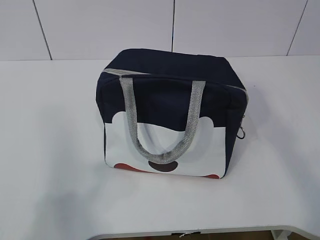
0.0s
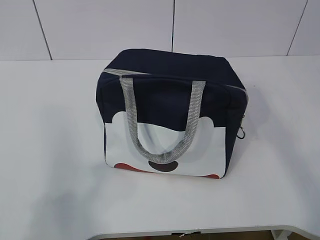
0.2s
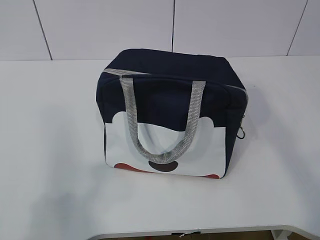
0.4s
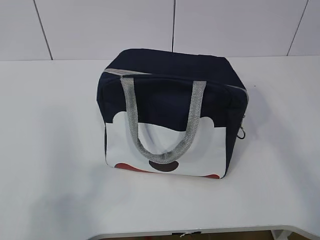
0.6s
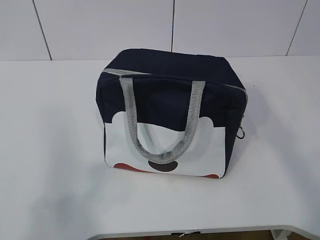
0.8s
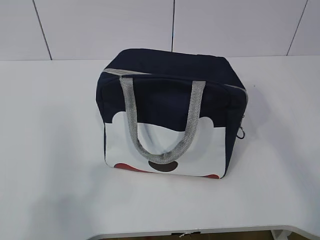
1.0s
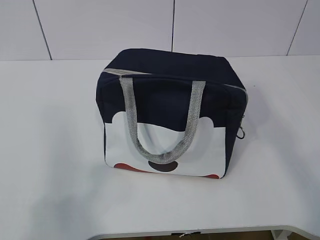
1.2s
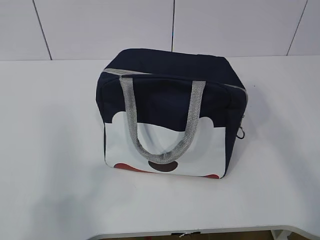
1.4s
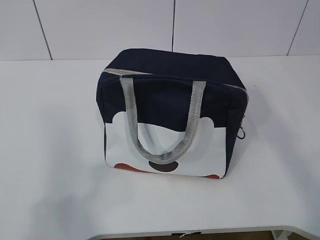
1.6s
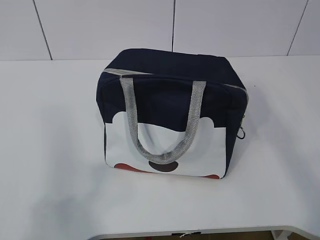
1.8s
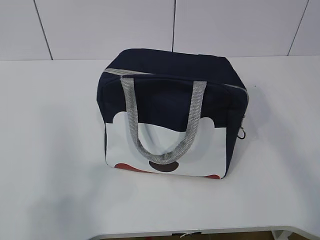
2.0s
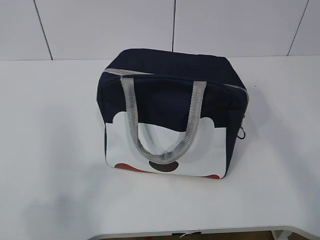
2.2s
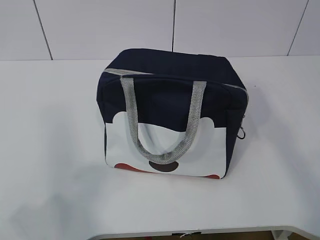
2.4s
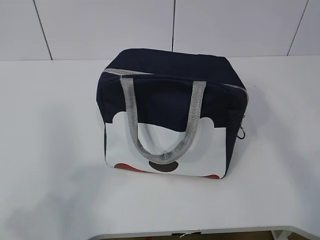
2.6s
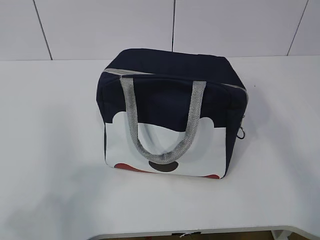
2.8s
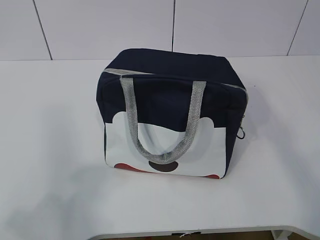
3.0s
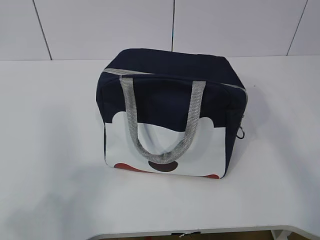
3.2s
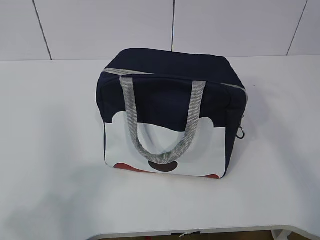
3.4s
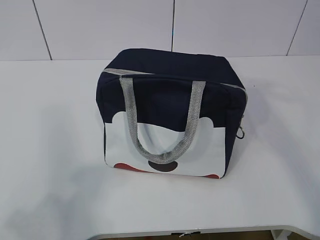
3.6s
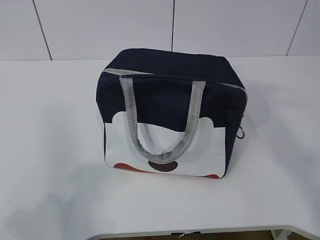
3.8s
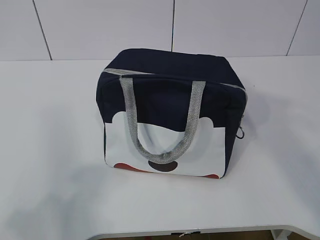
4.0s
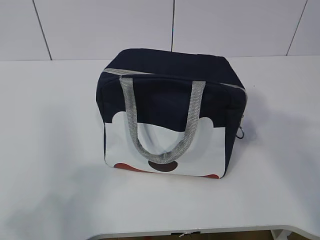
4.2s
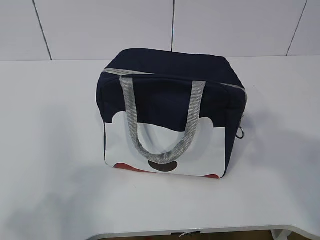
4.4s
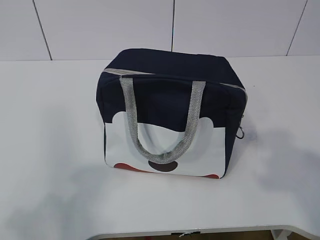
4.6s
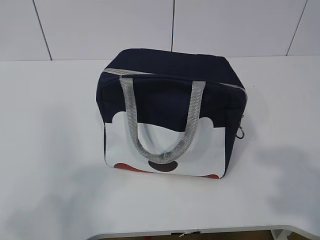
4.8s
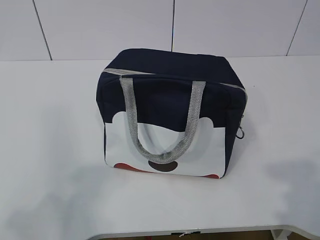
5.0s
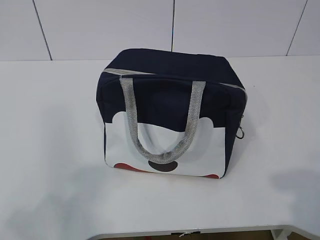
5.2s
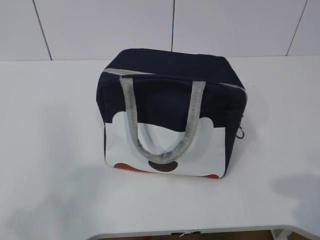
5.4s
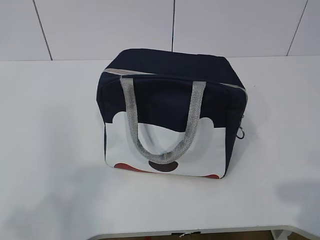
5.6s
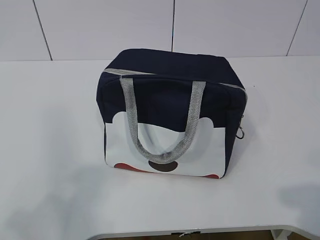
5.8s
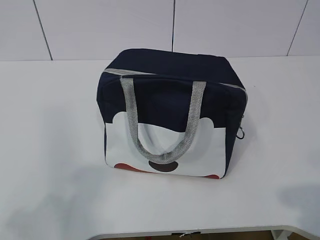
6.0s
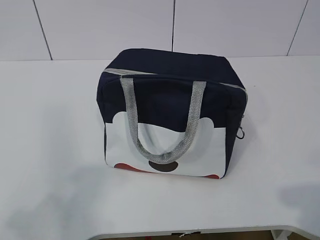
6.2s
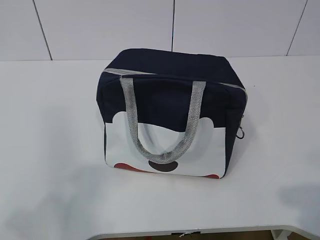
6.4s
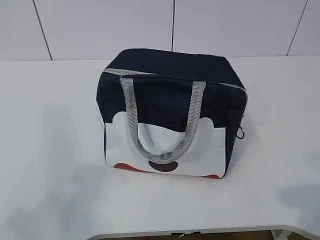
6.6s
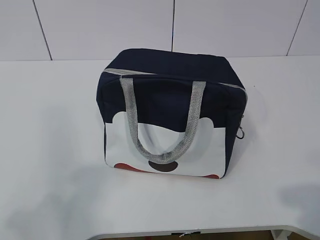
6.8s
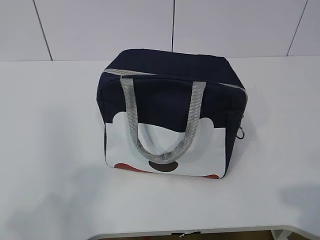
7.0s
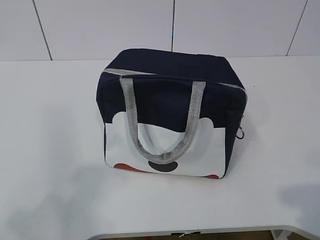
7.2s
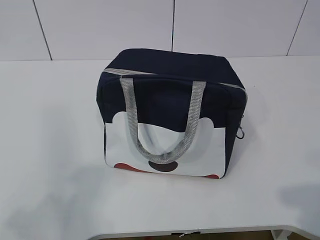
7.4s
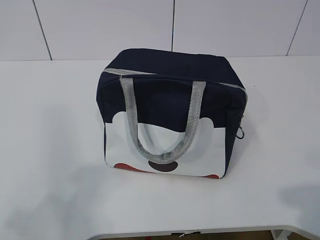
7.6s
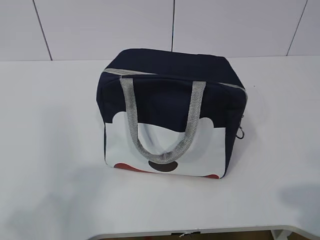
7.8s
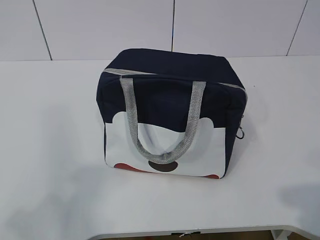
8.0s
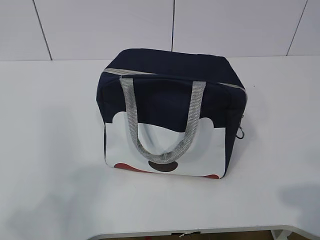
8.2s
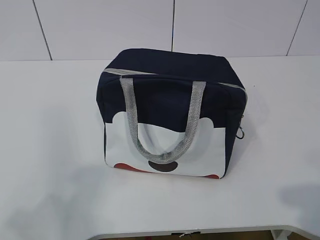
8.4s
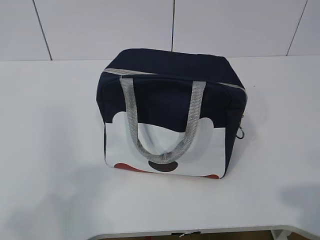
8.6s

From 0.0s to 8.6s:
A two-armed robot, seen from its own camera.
From 2.8s to 4.4s: The right gripper goes some 15 cm backward.
From 5.8s to 8.6s: The two grippers keep their place.

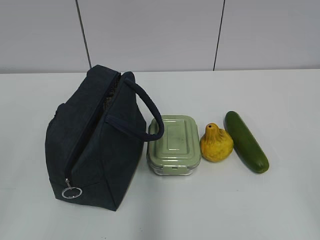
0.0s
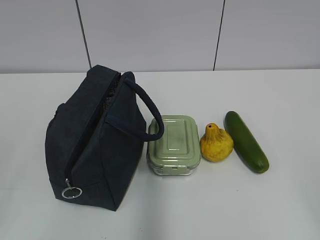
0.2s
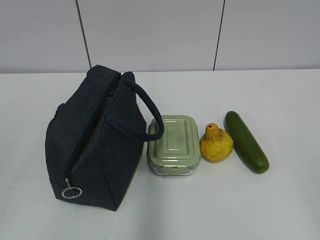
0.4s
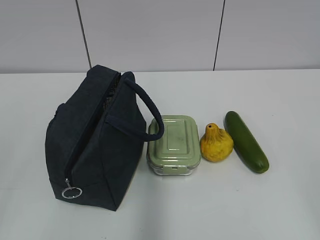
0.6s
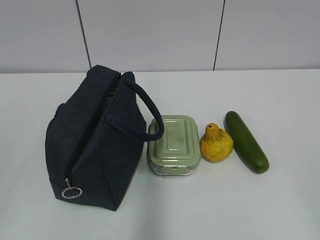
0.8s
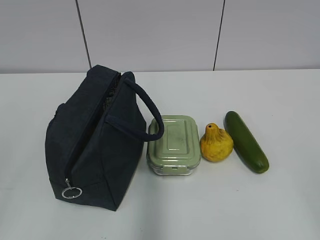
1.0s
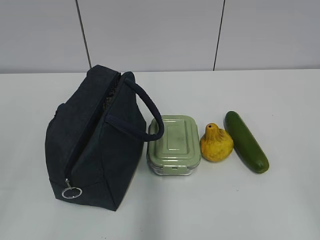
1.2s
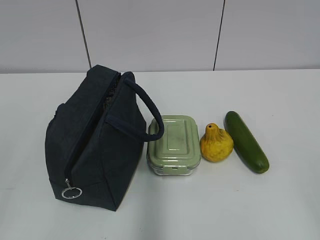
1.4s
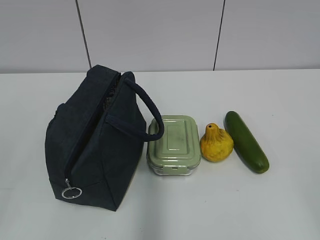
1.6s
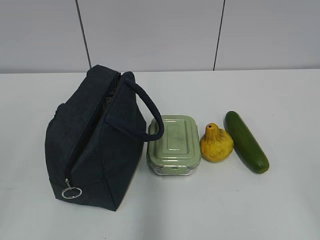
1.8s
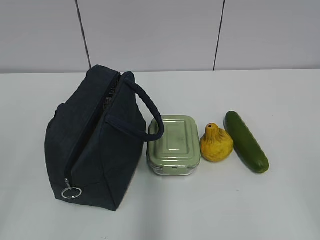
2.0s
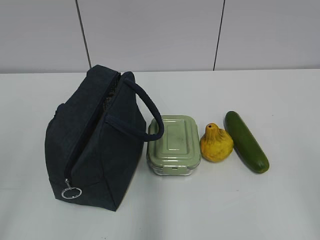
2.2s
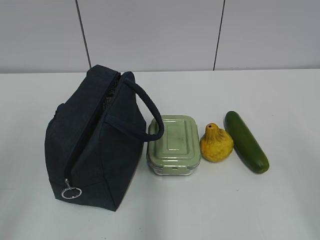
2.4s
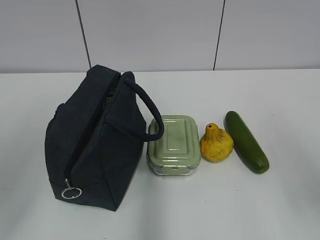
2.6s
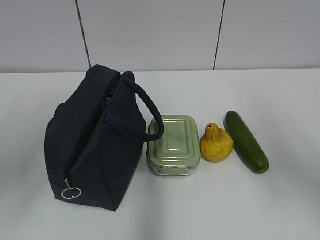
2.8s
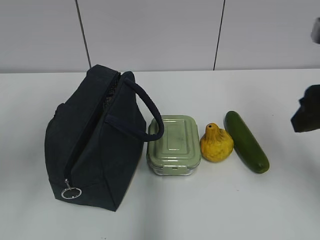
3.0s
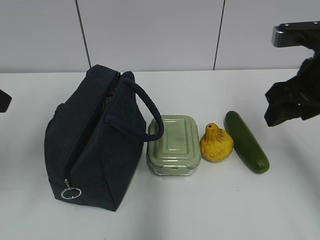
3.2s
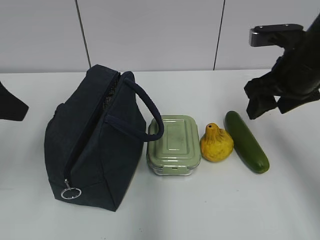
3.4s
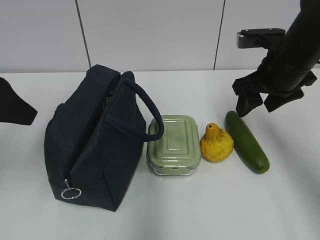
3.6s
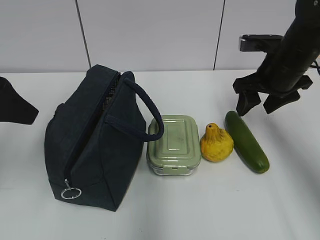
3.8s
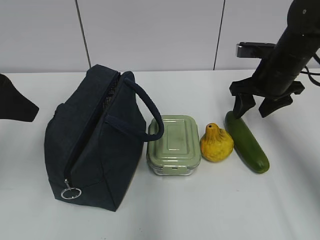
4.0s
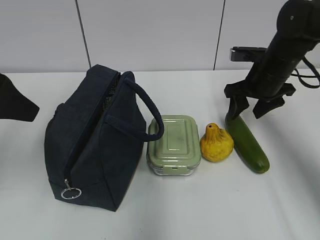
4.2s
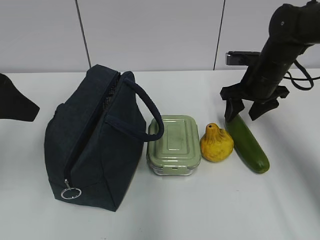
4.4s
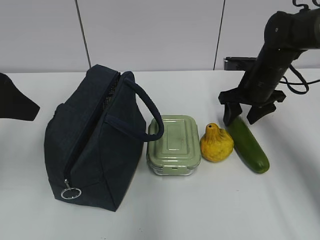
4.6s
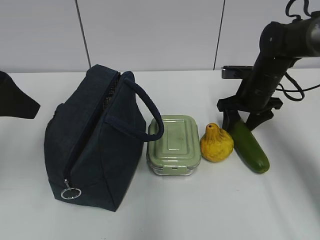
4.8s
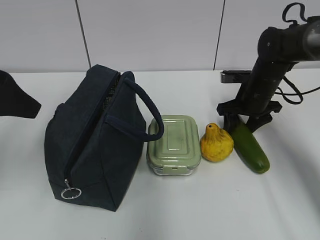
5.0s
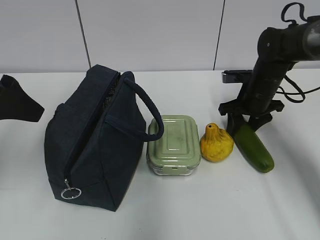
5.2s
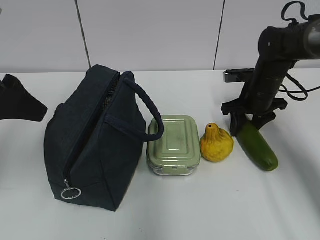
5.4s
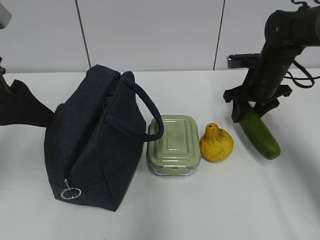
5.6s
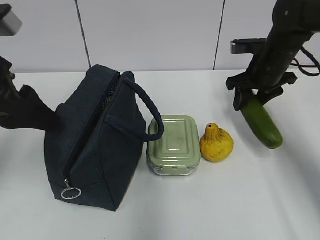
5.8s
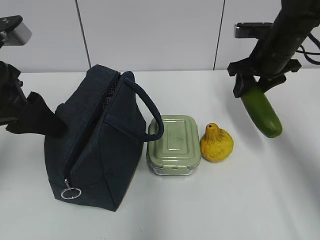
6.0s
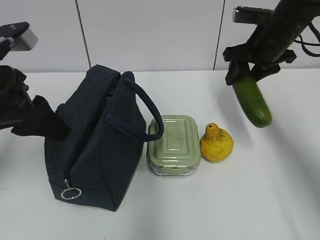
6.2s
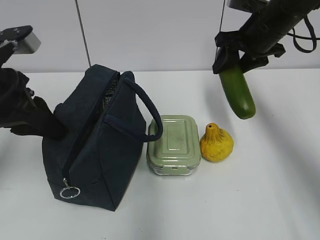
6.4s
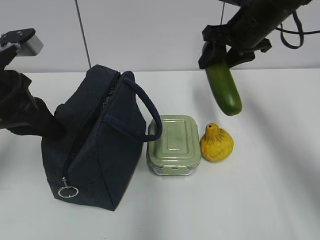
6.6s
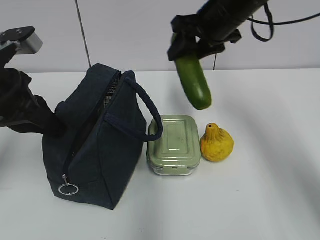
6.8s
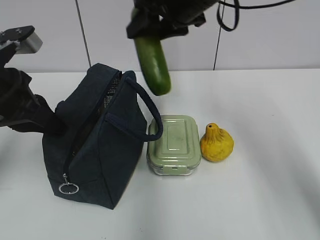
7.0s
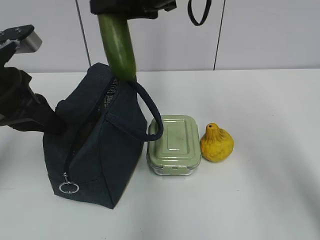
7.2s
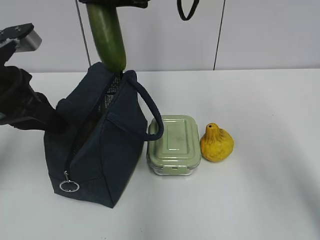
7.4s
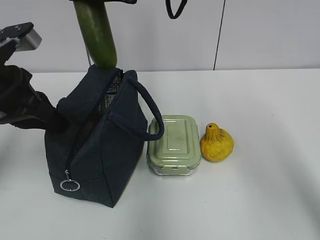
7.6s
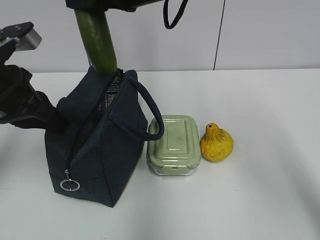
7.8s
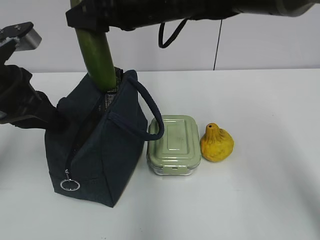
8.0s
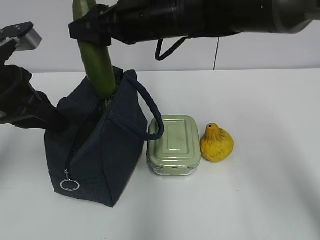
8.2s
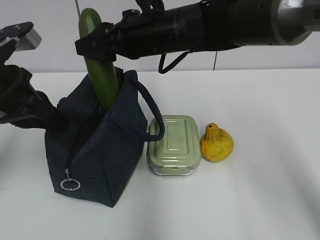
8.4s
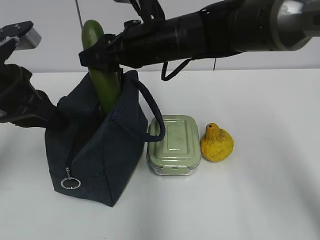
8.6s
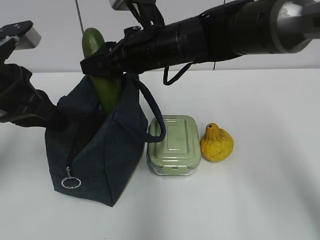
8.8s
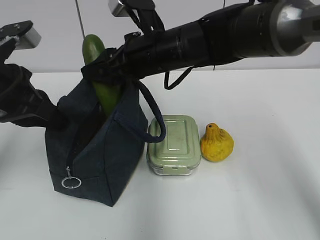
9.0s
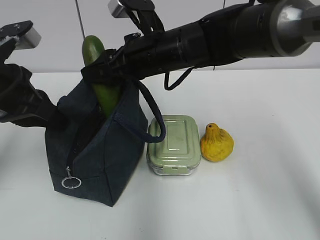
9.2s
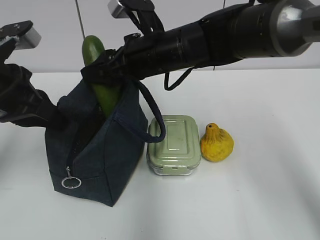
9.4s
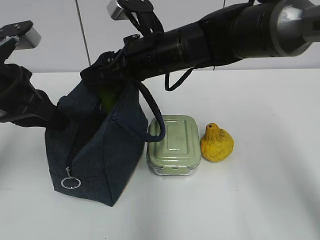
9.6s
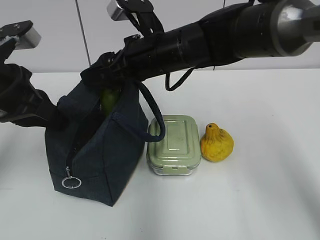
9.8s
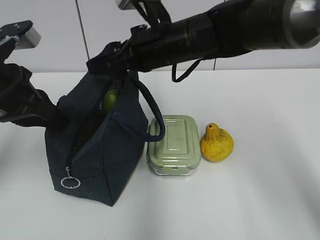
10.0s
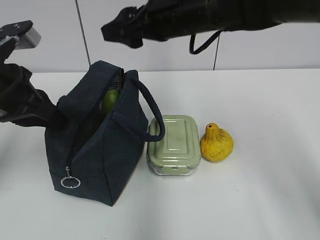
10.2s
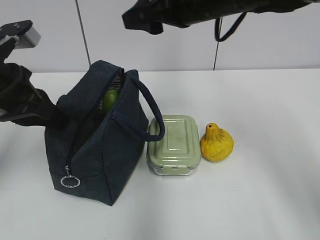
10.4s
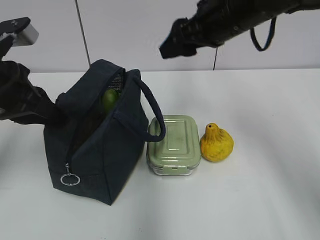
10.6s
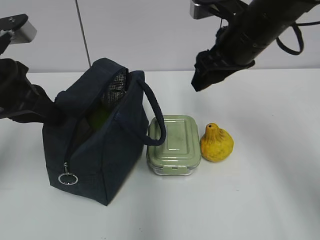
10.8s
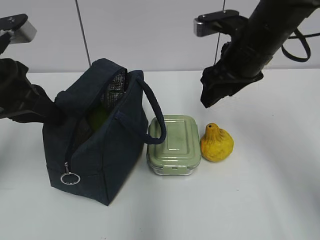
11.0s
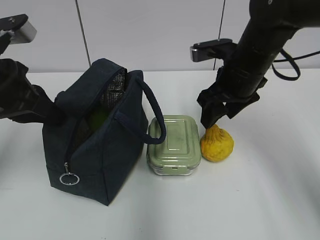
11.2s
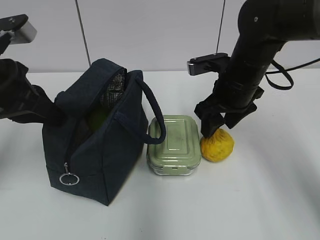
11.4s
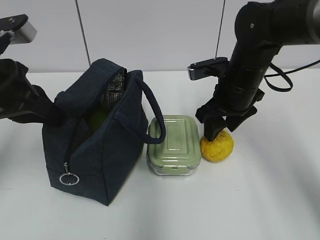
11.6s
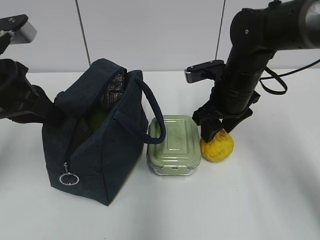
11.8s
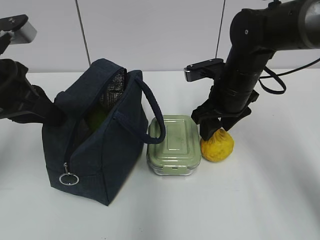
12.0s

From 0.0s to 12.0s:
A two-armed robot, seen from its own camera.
Step, from 0.0s to 5.0s: Grab the cucumber with your right hand.
Step, from 8.6s to 9.8s: Place it into the bag with your right hand.
From 1.6s to 3.0s: Both grippers travel together forward, about 20 cm.
From 3.0s to 4.4s: The right gripper goes approximately 25 cm forward and downward. Meanwhile the left gripper shifts by about 5 cm.
From 4.4s to 6.0s: The right gripper shifts approximately 5 cm upward.
From 6.0s to 7.6s: The left gripper closes. Meanwhile the right gripper shifts about 25 cm to the left and upward.
From 7.6s to 9.0s: The right gripper travels downward by some 10 cm.
From 9.0s to 10.4s: The right gripper shifts approximately 10 cm to the right and upward.
From 10.4s to 12.0s: The right gripper shifts roughly 15 cm downward.

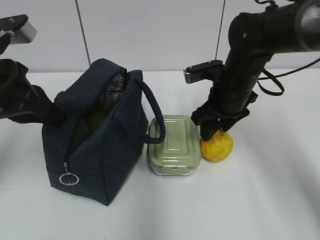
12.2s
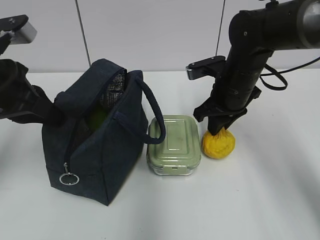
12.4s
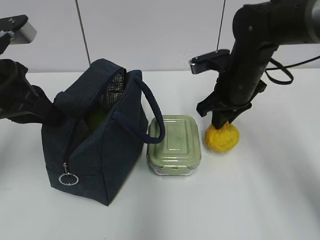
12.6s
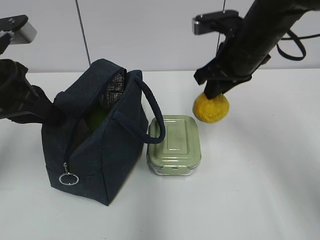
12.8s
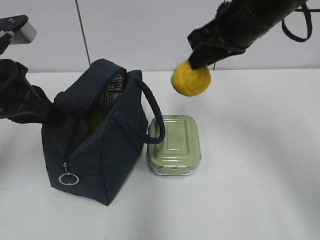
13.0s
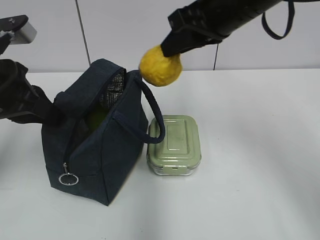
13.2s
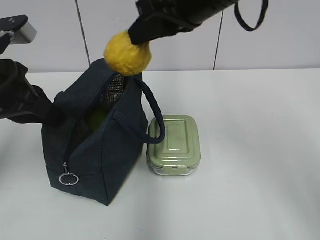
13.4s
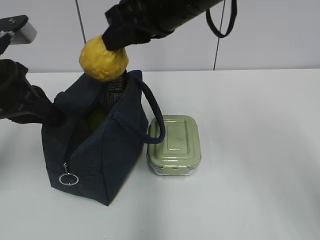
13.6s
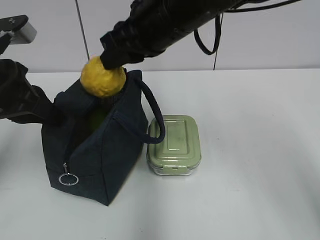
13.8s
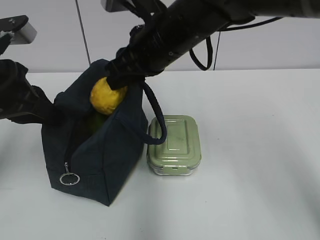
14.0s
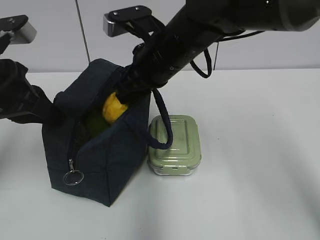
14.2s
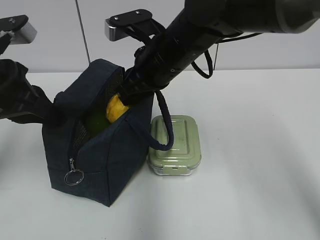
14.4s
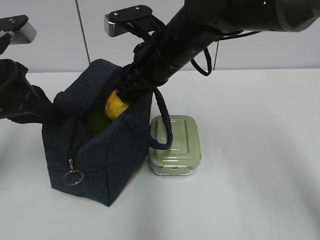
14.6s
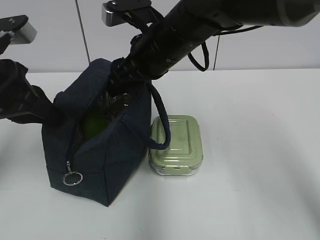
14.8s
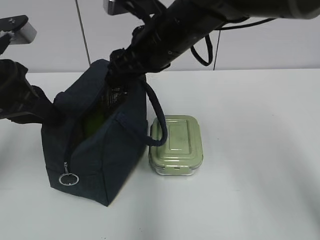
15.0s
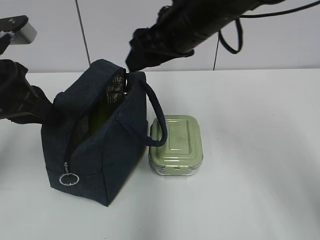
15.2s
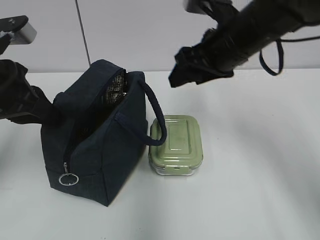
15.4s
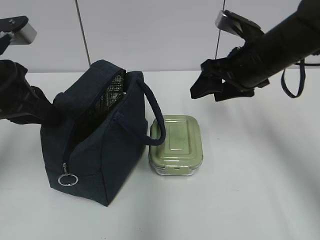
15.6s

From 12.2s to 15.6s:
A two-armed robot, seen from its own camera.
Step, from 12.6s to 14.6s: Place it into the bag with your right hand.
From 12.2s to 13.8s: The right gripper is displaced upward and to the left by about 15 cm, and closes up.
From 13.8s to 15.6s: The right gripper travels to the right and downward by approximately 15 cm, and opens.
